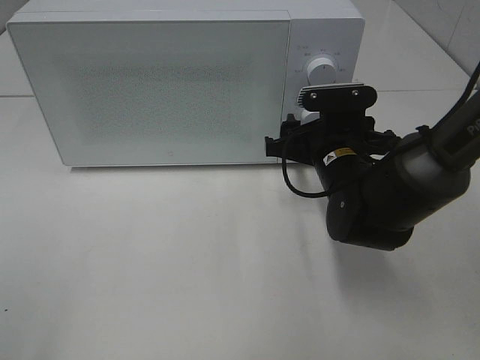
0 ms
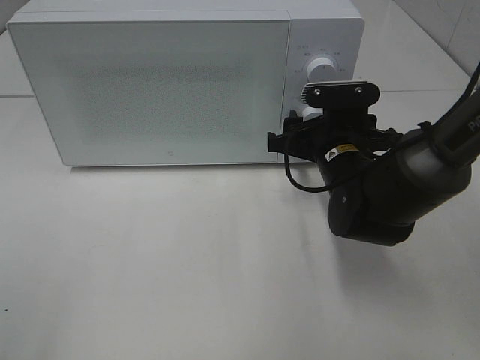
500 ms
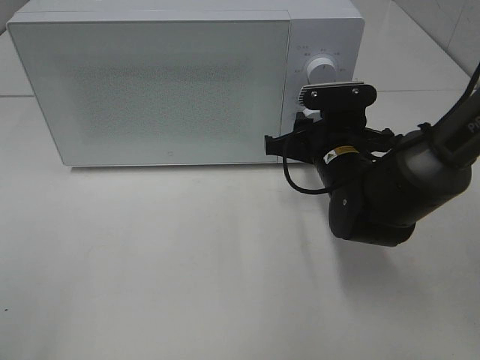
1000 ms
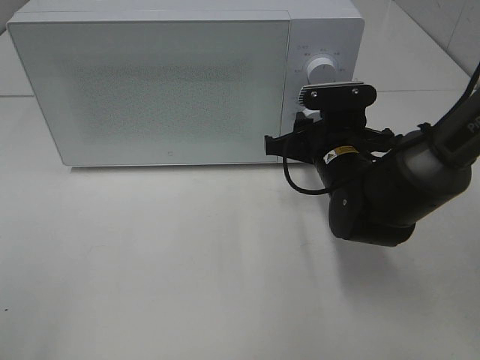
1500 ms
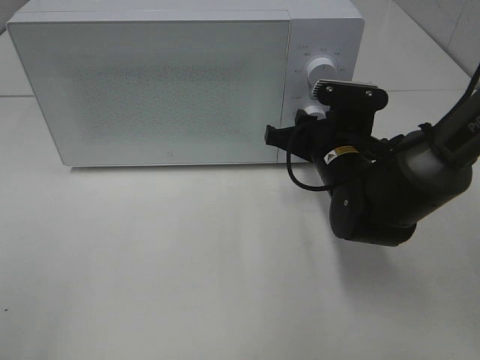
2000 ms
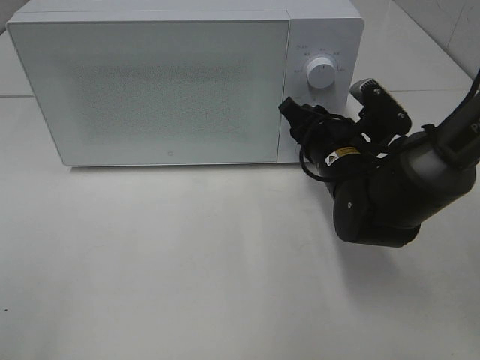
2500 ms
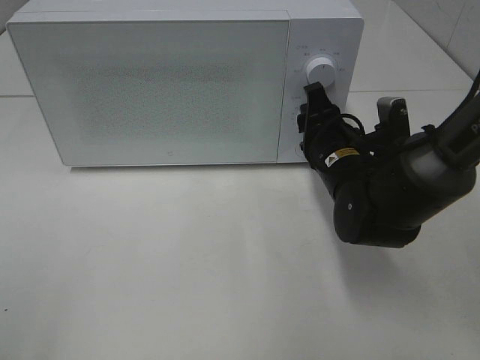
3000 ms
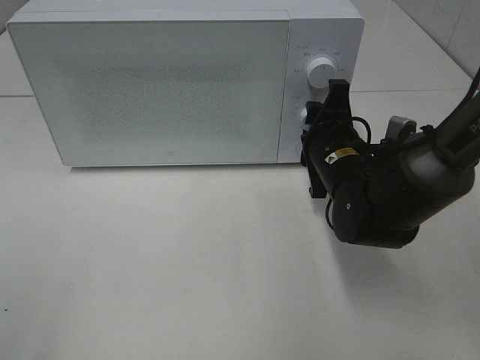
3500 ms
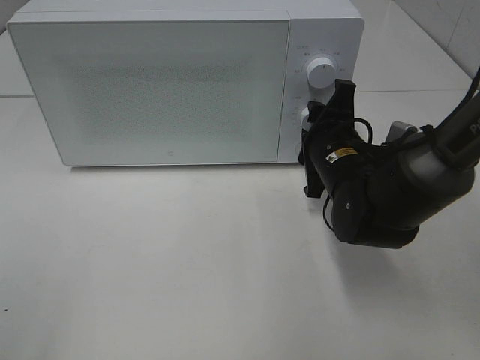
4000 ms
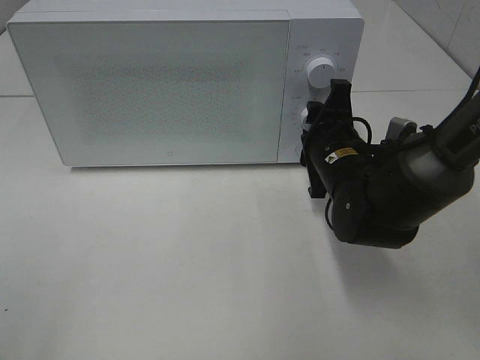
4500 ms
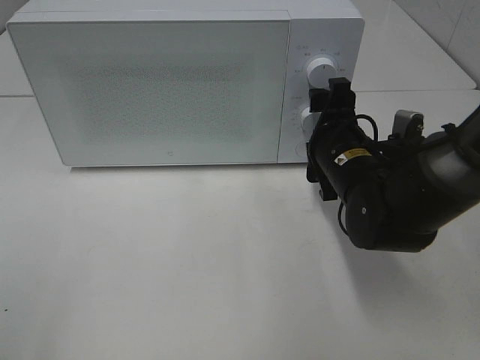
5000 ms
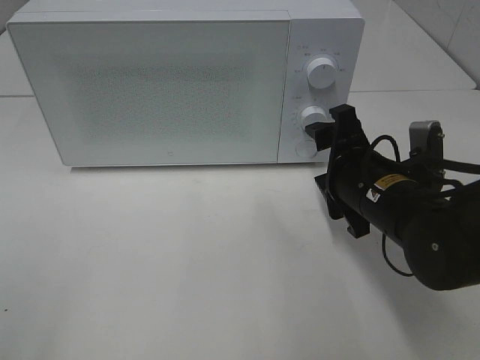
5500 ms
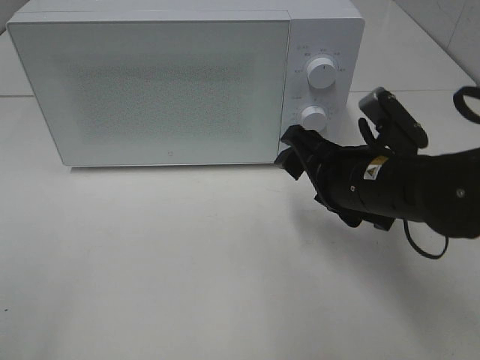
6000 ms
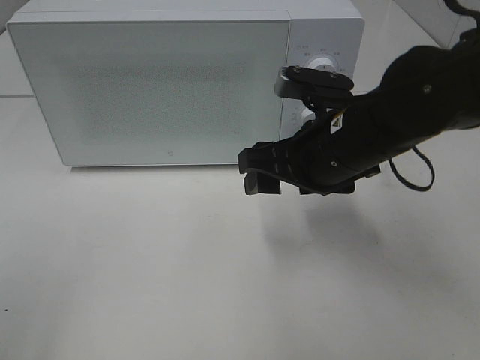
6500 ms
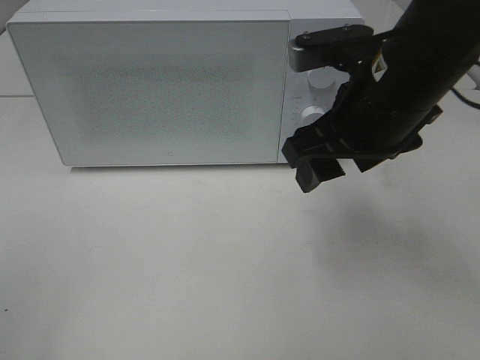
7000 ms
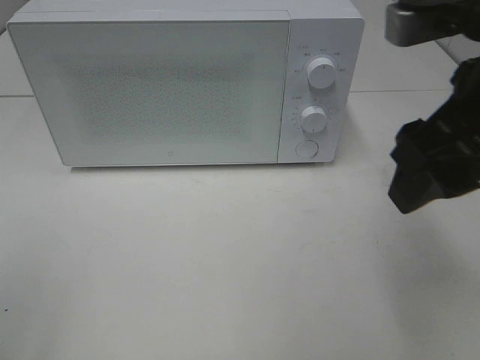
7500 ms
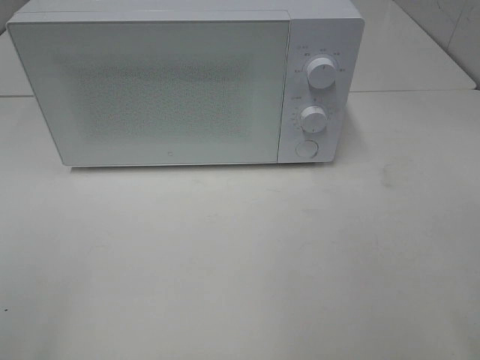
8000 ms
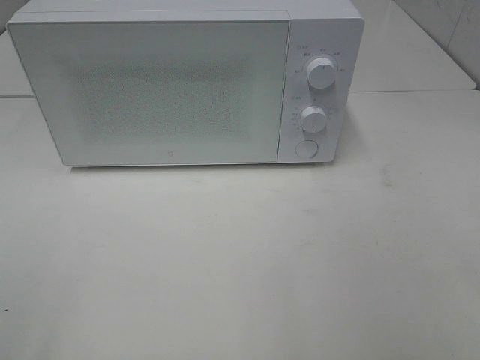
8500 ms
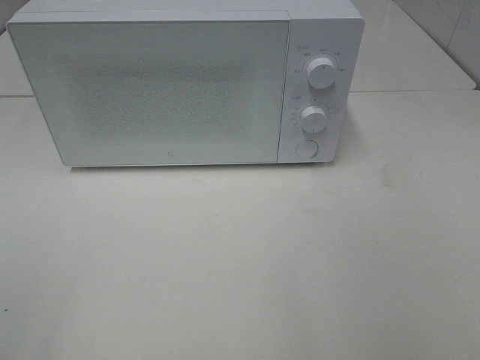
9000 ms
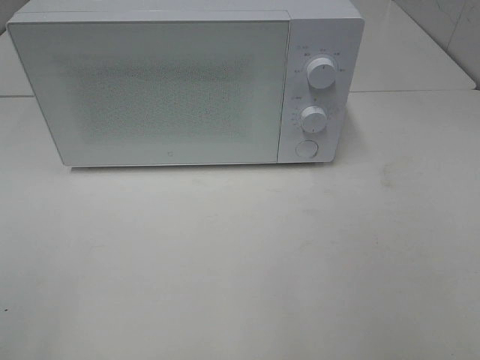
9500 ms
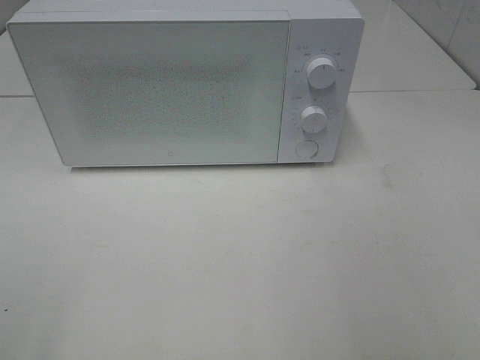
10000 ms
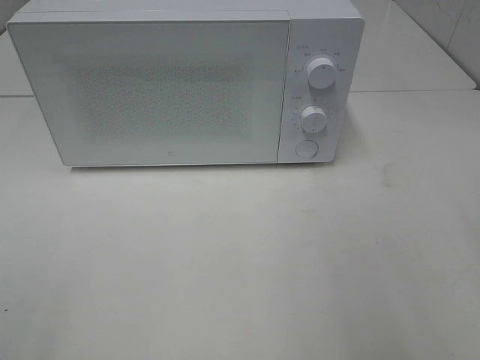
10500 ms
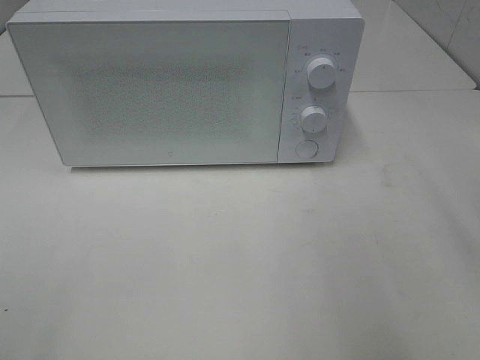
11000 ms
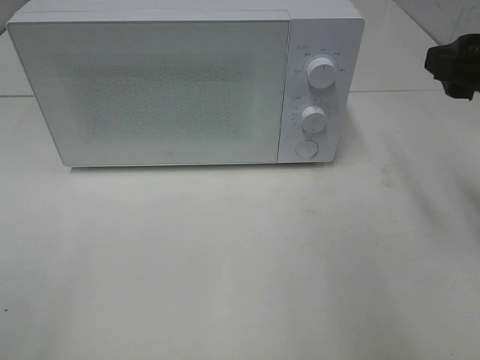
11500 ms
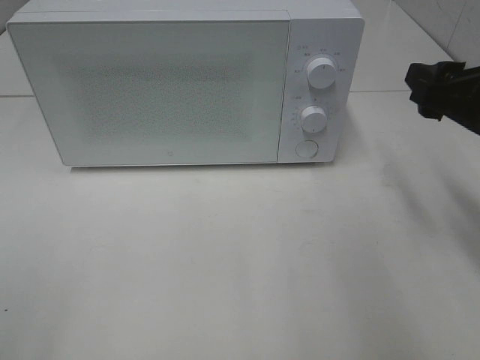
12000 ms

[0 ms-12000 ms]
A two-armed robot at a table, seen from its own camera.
Task of the whole recording: Heat the burger.
Step, 0 ms to 5000 ms: Right hand: twist timer button.
0 ms to 2000 ms: The grippers move only a little.
4000 ms to 6000 ms: The right gripper moves backward, roughly 5 cm.
6000 ms to 8000 ms: The right gripper shifts about 25 cm upward, backward and to the right.
10000 ms to 12000 ms: The right gripper goes about 25 cm forward and downward.

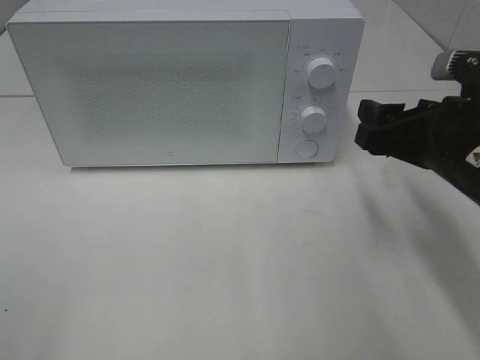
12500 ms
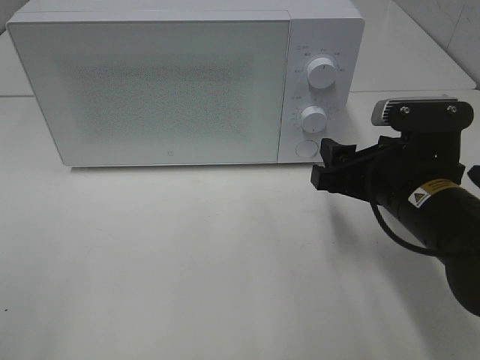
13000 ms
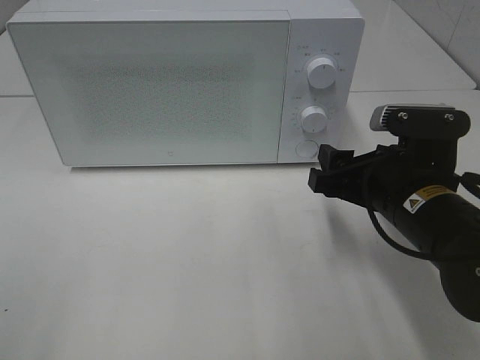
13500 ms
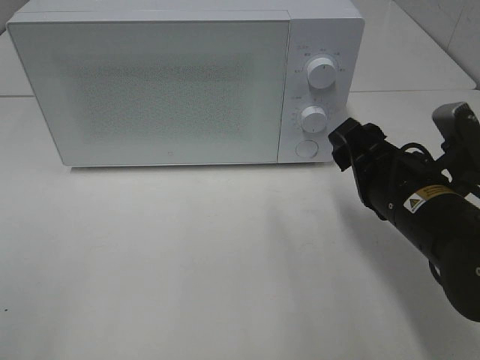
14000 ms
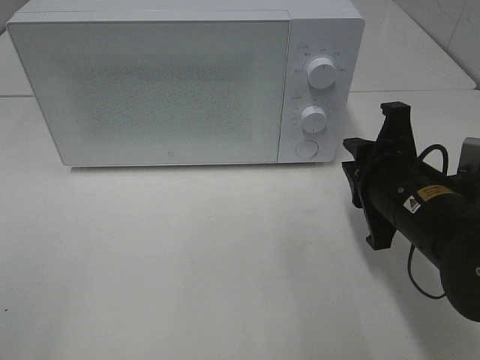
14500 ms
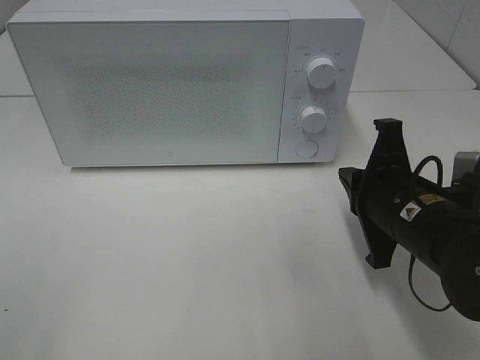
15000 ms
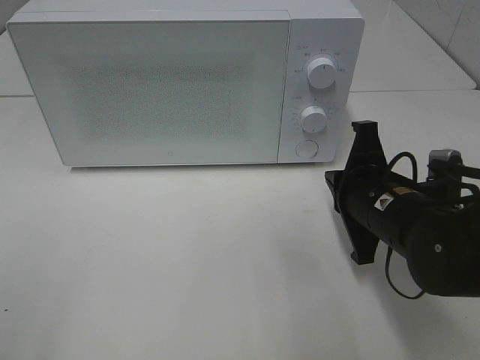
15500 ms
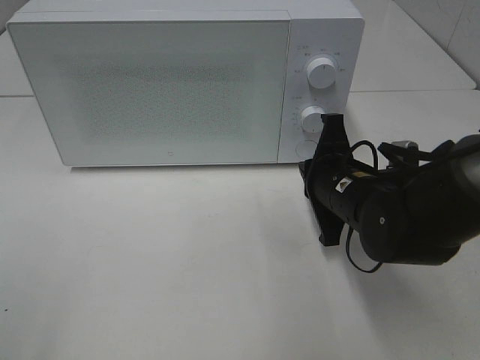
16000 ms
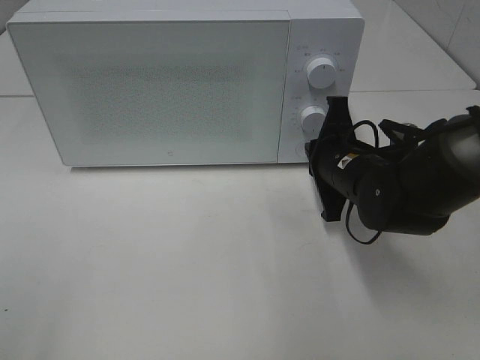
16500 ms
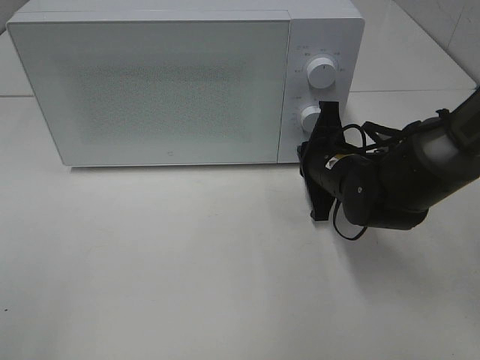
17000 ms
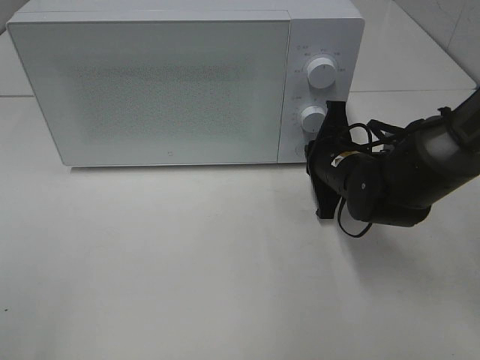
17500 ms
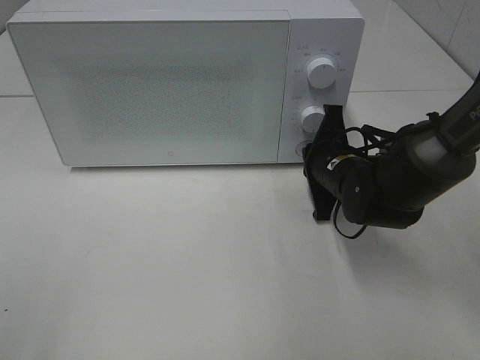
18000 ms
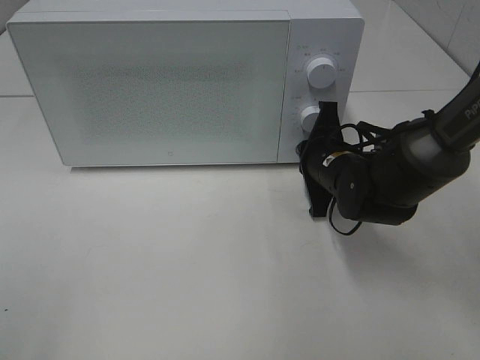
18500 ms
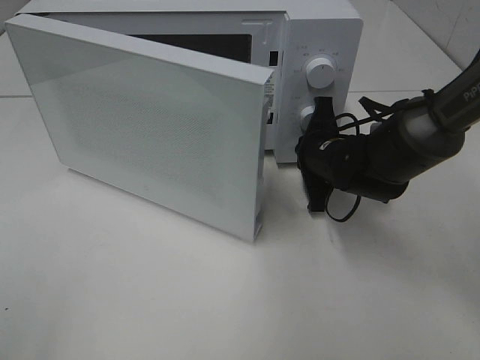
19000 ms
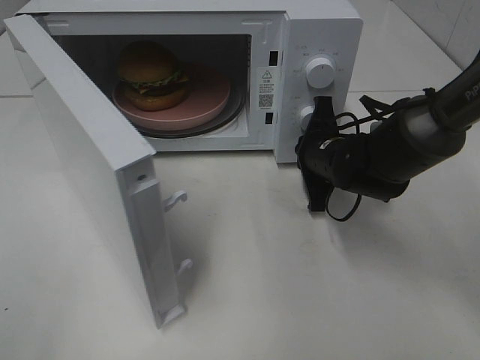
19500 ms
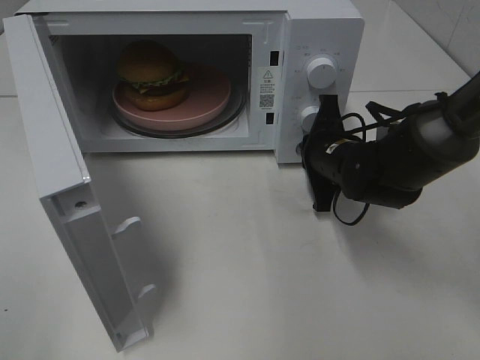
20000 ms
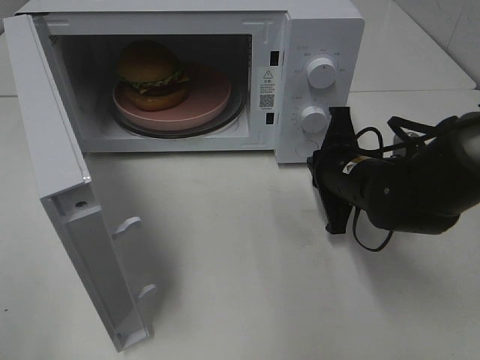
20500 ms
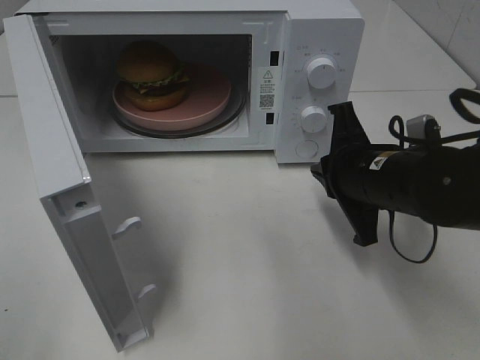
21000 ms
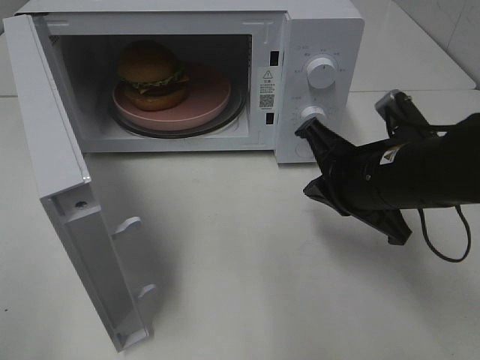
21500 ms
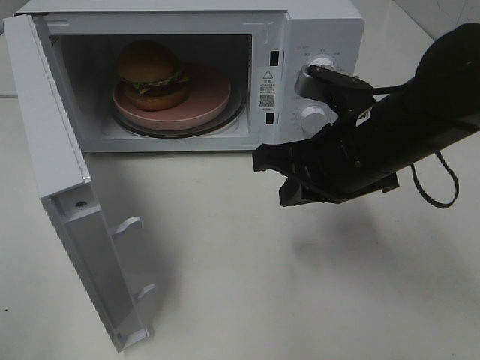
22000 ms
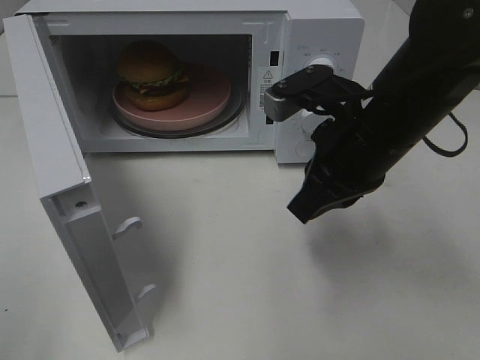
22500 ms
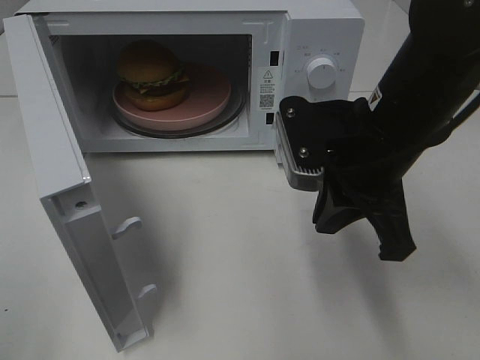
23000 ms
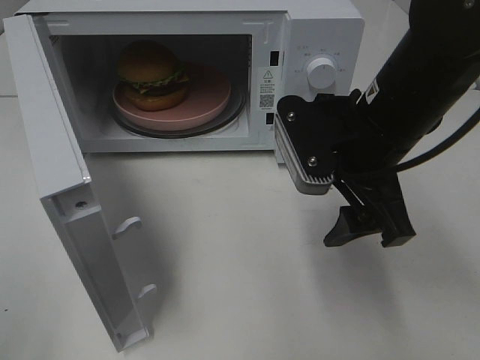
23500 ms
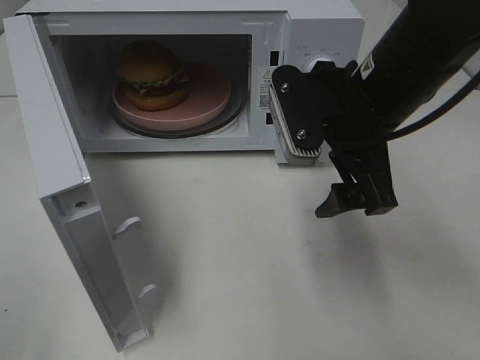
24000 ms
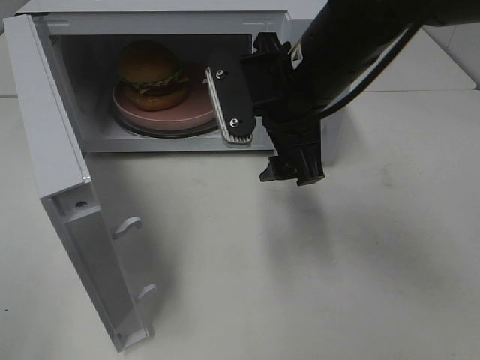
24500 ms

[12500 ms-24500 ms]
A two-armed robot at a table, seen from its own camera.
Task of the whole recording: Heat the burger.
Step, 12500 ms to 20500 ms: Right hand: press the switch.
12500 ms to 14500 ms: The right gripper ends up roughly 5 cm from where it was, and closes up.
14500 ms to 16500 ms: The right gripper travels forward by approximately 10 cm.
16500 ms to 18500 ms: The grippers stay close to where they were, moving slightly.
18500 ms to 20500 ms: The right gripper shifts by some 5 cm.
20500 ms to 22500 ms: The right gripper goes roughly 10 cm upward and backward.
22500 ms to 24500 ms: The right gripper goes about 5 cm to the left, and opens its fingers.

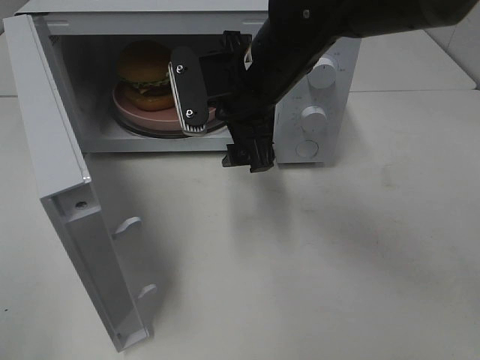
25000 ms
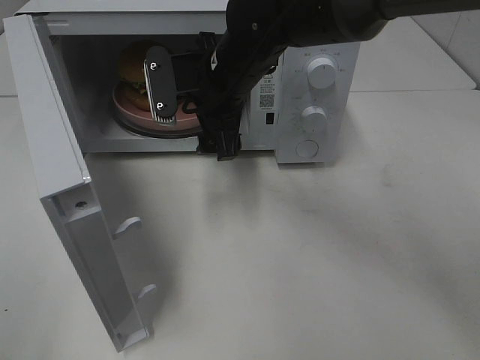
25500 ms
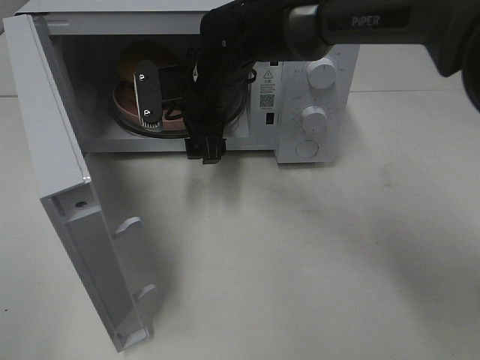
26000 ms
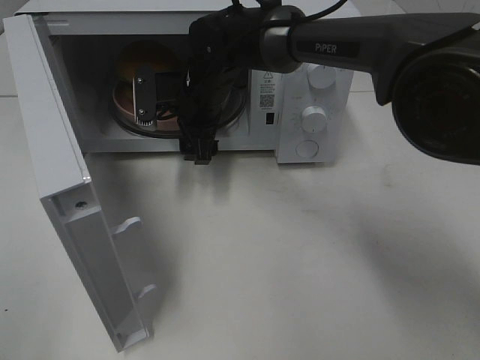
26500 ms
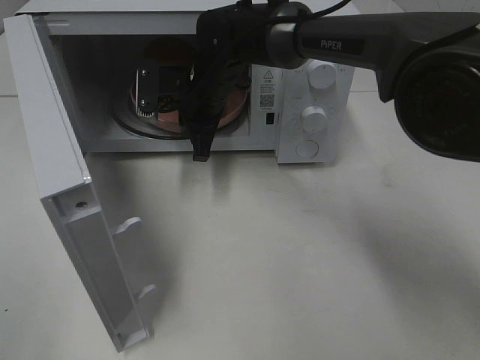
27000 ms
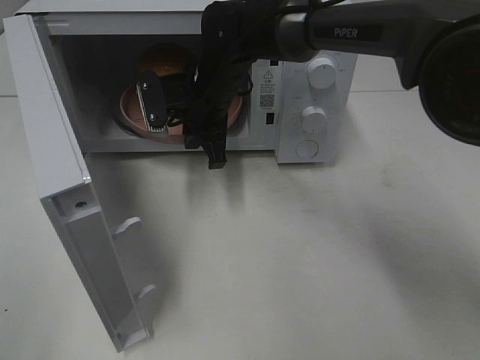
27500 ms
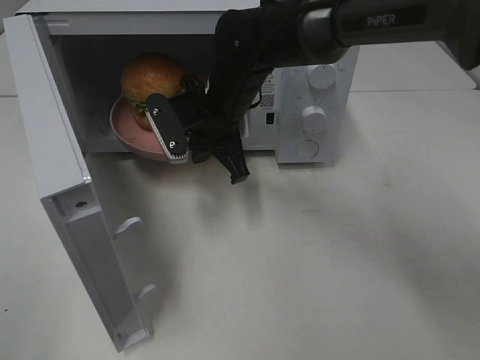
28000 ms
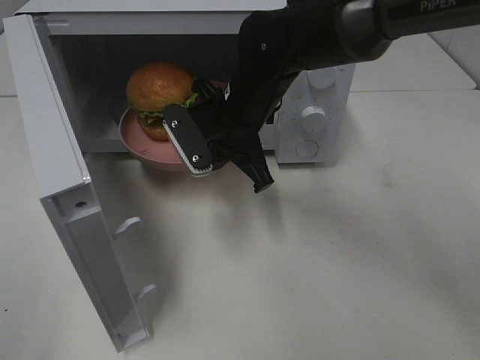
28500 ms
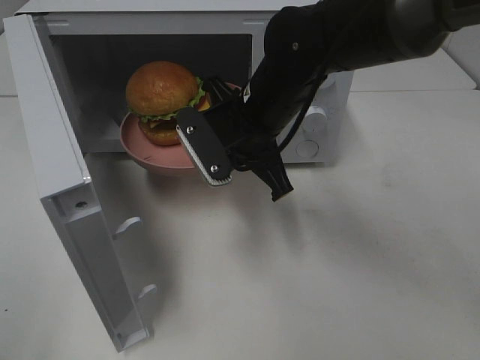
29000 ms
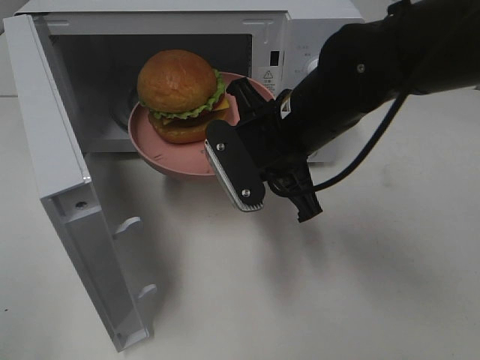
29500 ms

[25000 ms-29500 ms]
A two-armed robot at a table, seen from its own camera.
Task of the whole recording: Heat the burger.
Step, 25000 ms to 27500 ms: Right hand: grab the plate with the hamburger.
25000 ms to 27000 ms: The right gripper heads forward, downward and to the left, covering about 15 cm, and closes up.
27000 ms to 29500 ms: The right gripper goes roughly 20 cm backward and to the right.
